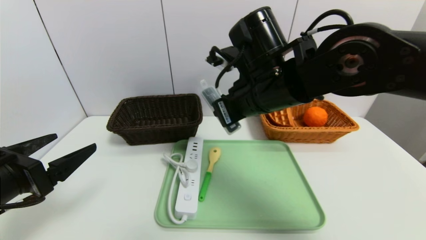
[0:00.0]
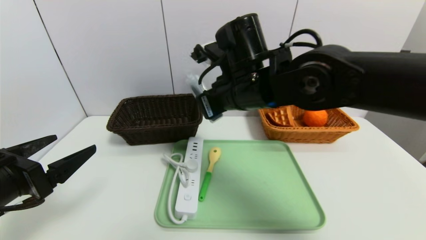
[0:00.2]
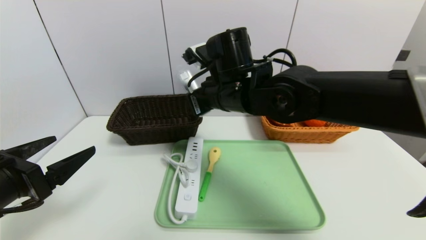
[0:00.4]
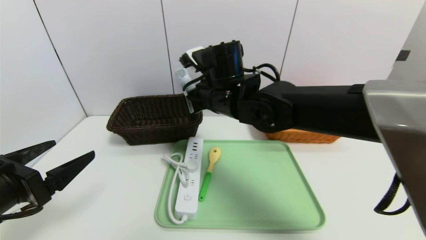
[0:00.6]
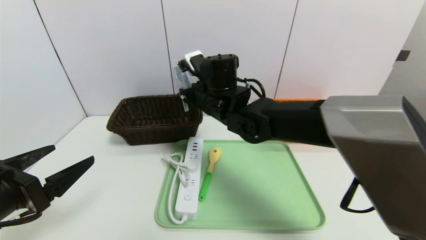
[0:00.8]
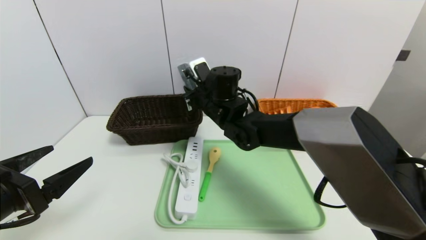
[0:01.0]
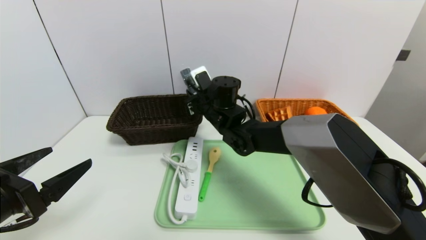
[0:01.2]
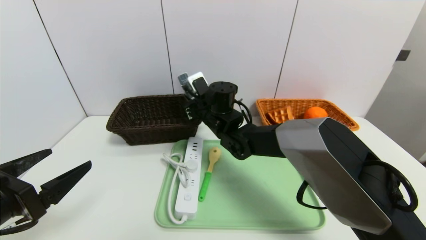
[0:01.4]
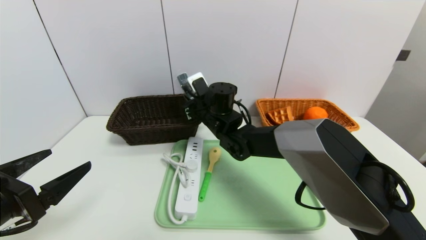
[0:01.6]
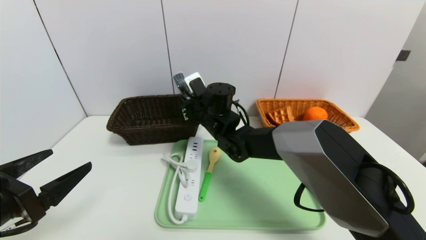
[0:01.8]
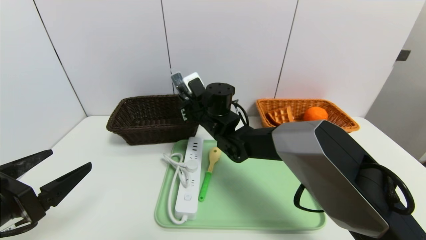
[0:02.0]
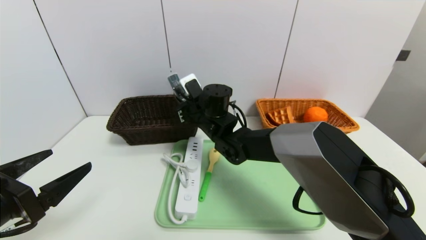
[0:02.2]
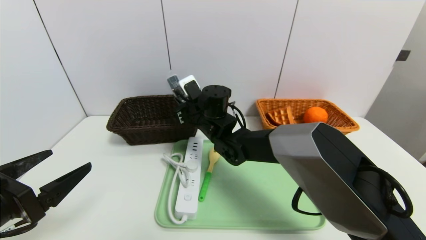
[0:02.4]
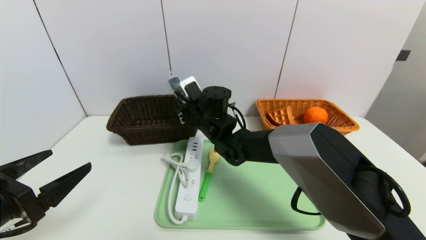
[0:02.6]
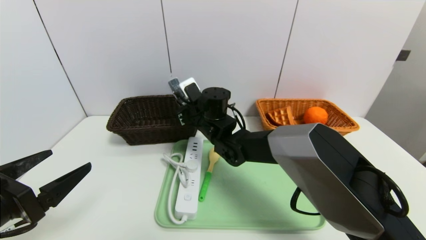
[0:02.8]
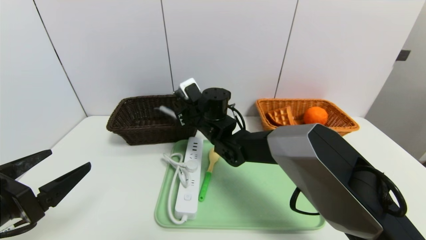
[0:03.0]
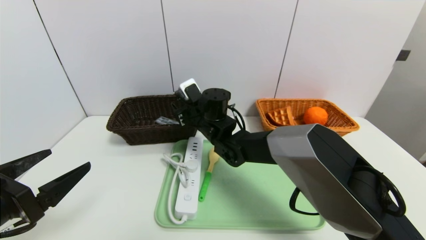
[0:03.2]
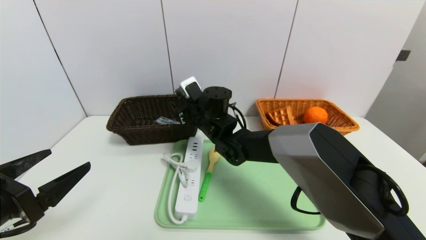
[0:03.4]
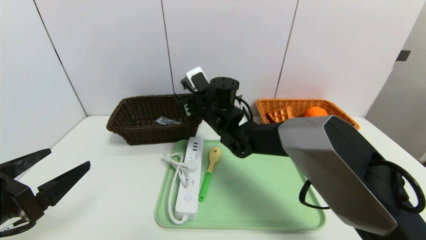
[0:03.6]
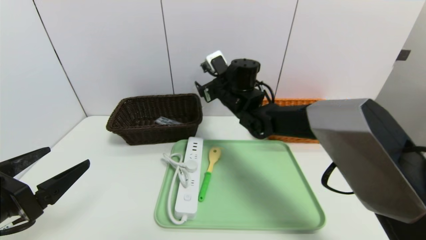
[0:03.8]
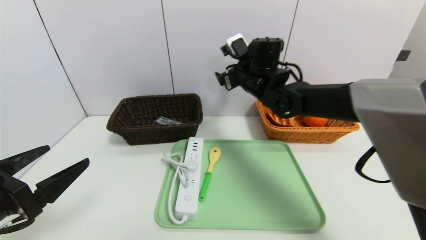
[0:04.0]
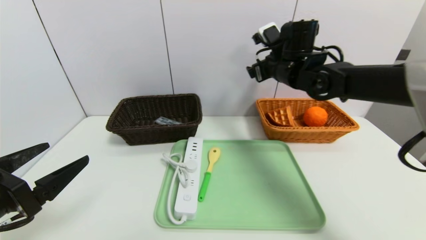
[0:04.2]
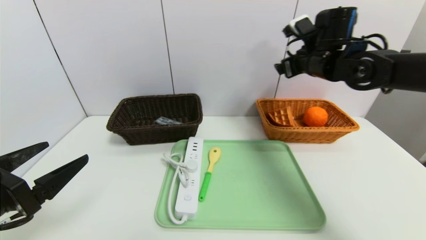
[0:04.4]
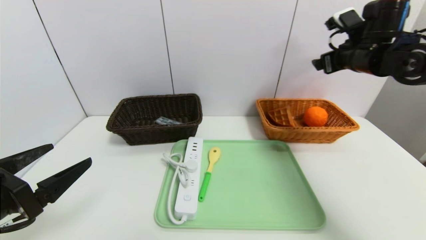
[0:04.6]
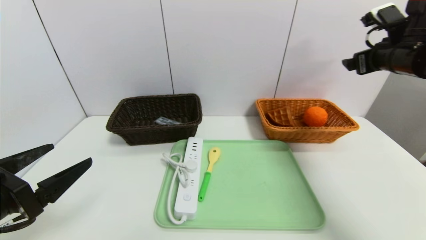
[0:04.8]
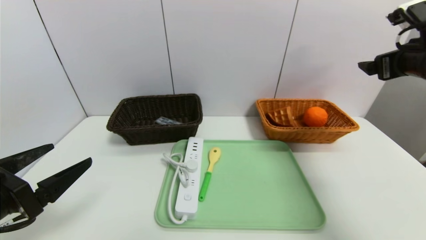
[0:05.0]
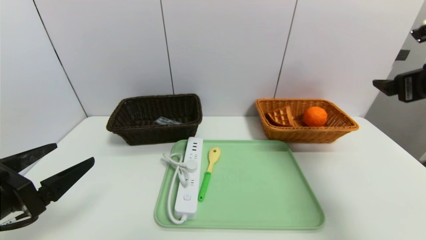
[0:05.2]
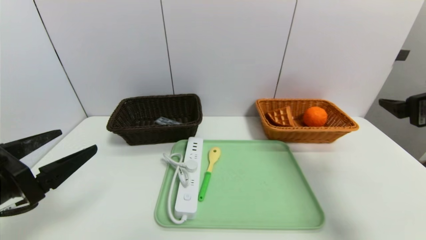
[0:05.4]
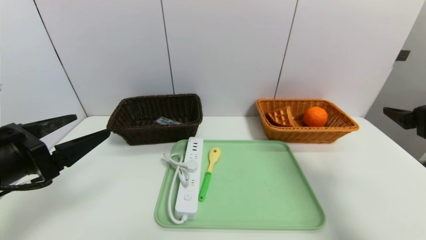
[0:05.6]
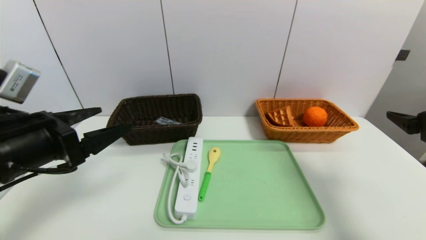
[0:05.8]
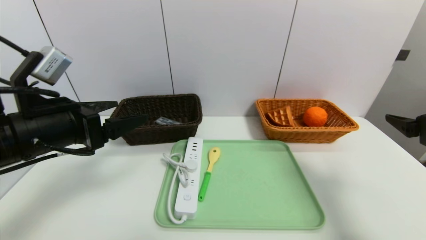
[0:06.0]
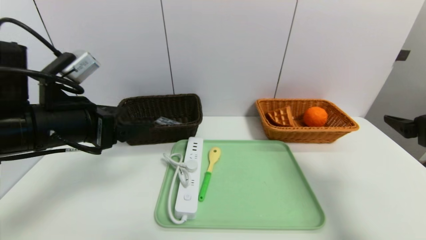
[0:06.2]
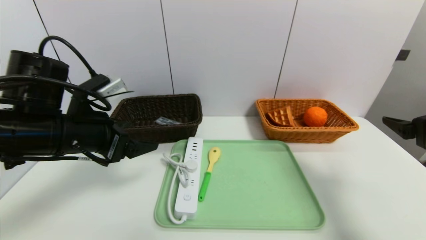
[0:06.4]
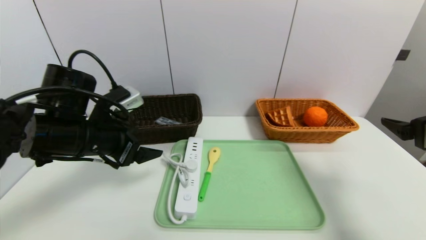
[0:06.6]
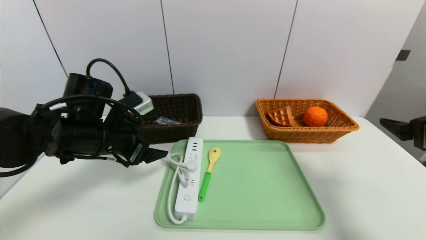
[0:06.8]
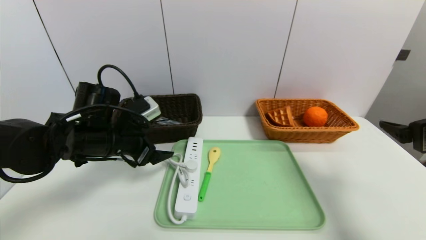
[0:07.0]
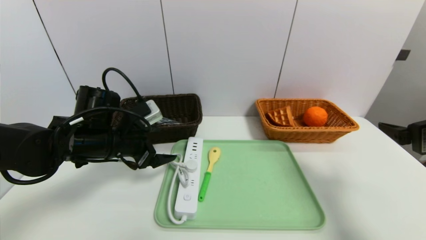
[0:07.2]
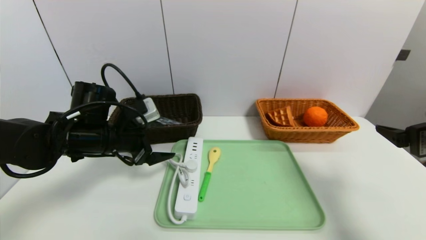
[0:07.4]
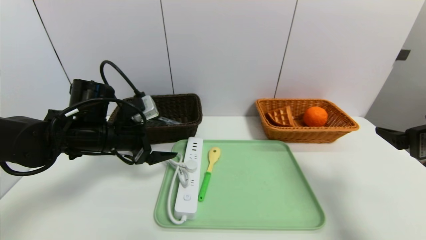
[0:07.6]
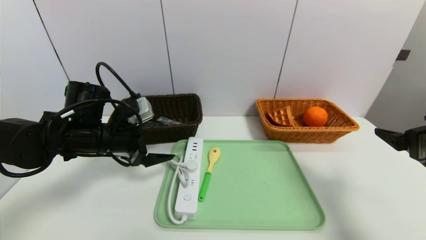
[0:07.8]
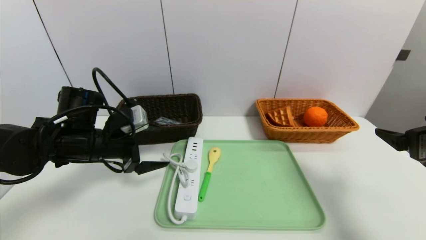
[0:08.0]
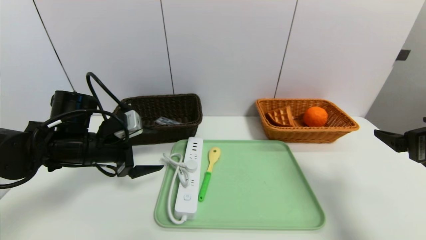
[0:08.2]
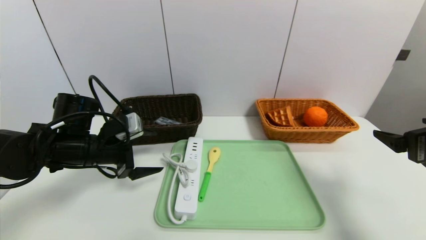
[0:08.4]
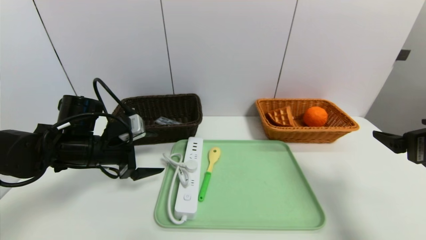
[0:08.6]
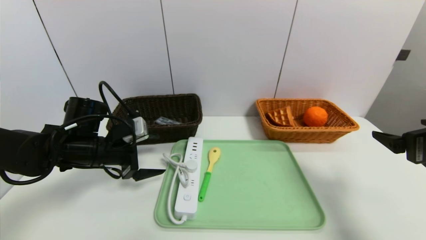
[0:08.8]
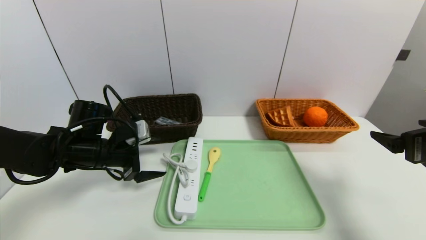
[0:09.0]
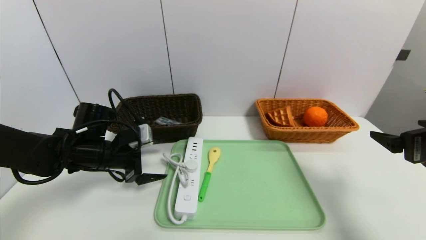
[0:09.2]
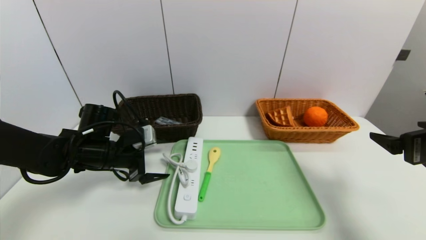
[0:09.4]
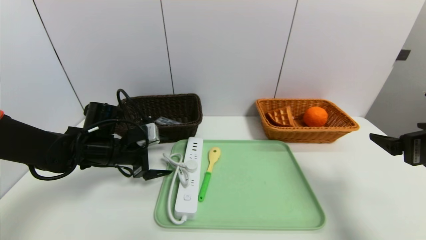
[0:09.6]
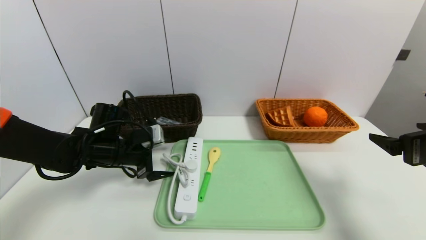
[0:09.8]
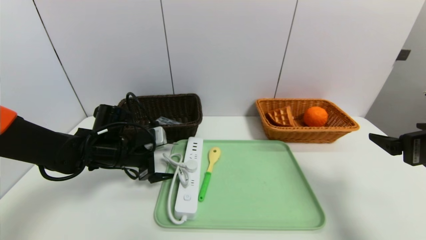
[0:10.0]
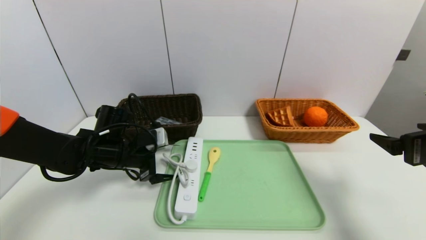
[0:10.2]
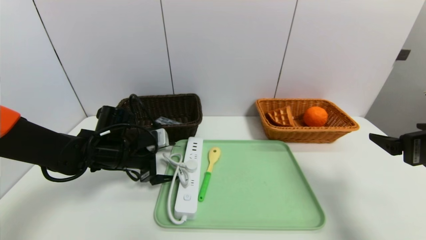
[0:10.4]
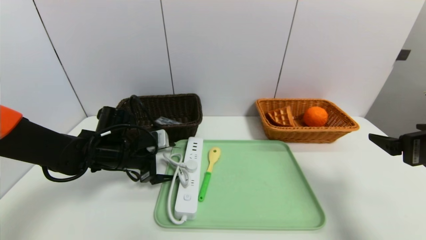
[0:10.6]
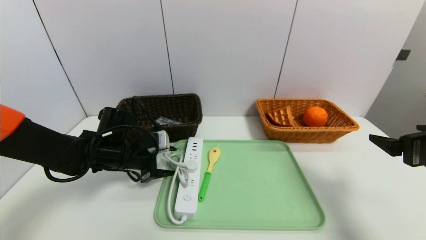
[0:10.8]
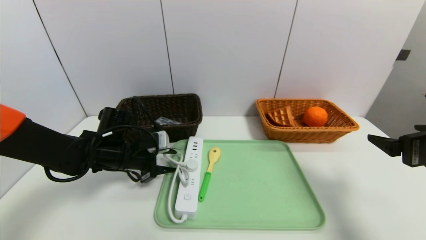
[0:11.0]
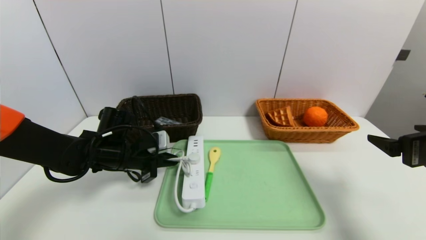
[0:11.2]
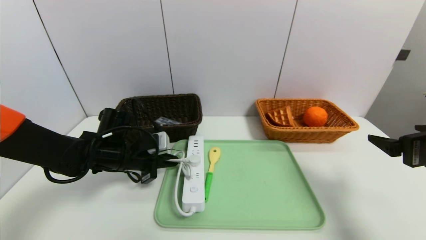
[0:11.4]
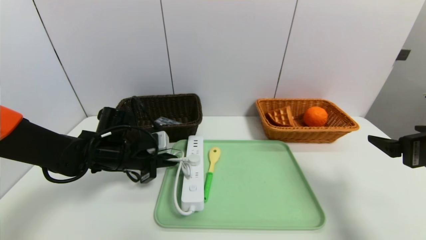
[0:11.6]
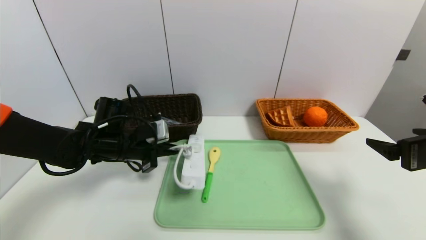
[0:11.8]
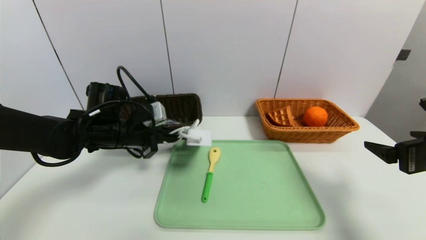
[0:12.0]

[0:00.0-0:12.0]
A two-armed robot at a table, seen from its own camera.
Task of the whole recording: place the food in the right basket with the right gripper, and place the non food items in the left basket with the left gripper.
0:00.0 to 0:01.6: The right gripper moves forward, downward and to the left, about 20 cm.
0:01.6 to 0:03.0: The right gripper opens.
0:03.0 to 0:04.4: The right gripper is displaced to the right and upward by about 30 cm, and opens.
0:04.4 to 0:06.0: The left gripper goes about 10 cm forward, upward and to the right. Meanwhile the right gripper travels backward and to the right by roughly 25 cm.
0:06.0 to 0:07.6: The left gripper travels forward and downward by roughly 10 cm.
0:07.6 to 0:09.0: The left gripper ends up some 5 cm from where it was.
0:09.0 to 0:10.4: There are only small adjustments of the grippers.
0:10.4 to 0:12.0: The left gripper travels upward by about 5 cm, and closes.

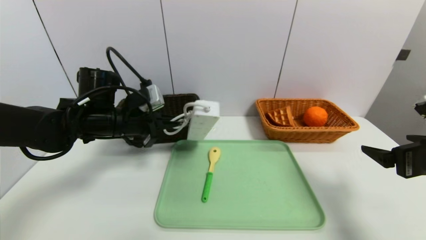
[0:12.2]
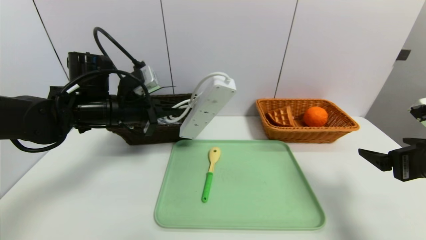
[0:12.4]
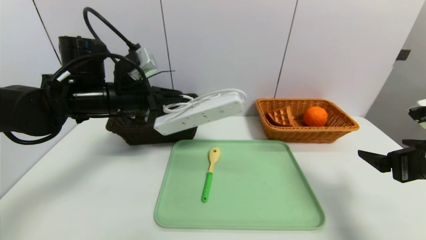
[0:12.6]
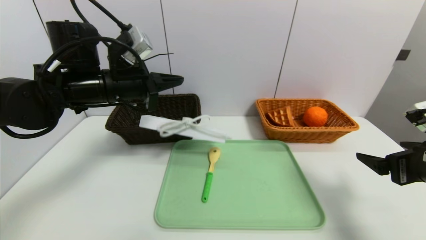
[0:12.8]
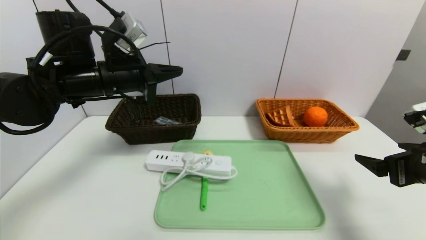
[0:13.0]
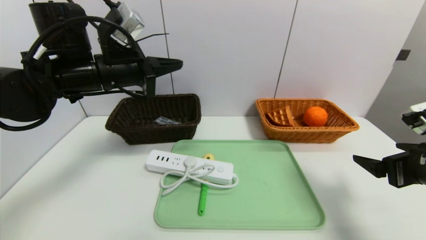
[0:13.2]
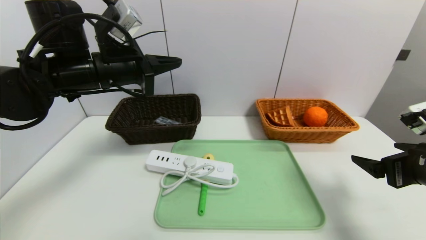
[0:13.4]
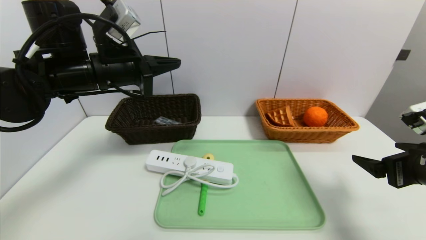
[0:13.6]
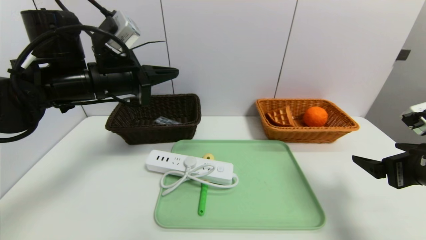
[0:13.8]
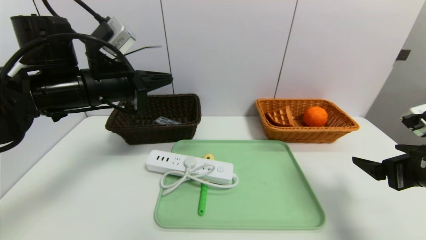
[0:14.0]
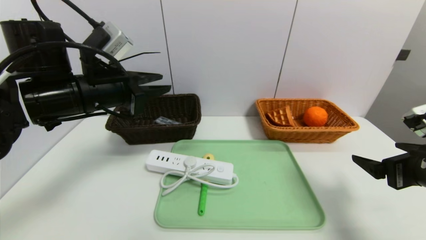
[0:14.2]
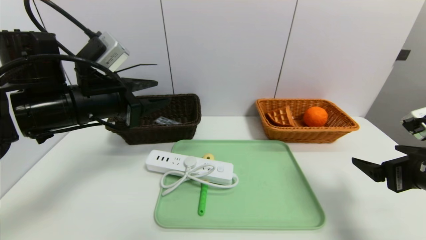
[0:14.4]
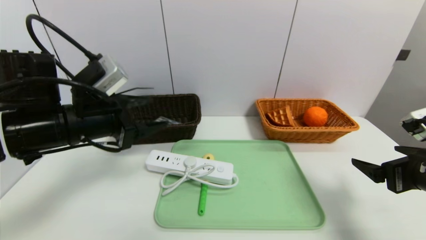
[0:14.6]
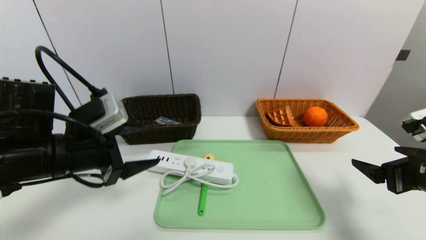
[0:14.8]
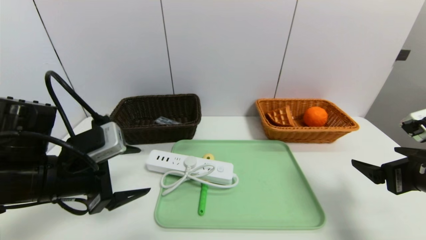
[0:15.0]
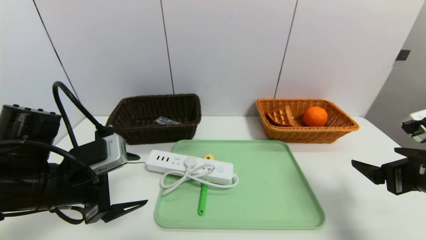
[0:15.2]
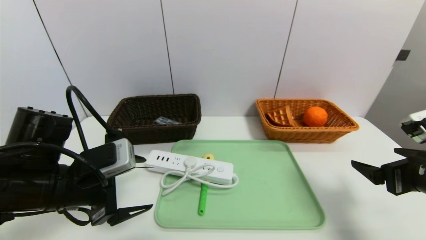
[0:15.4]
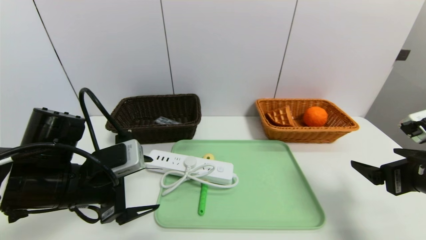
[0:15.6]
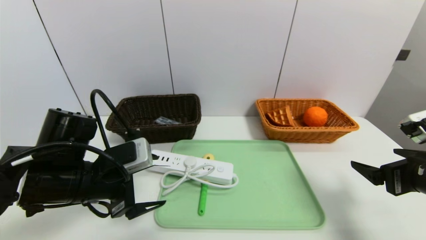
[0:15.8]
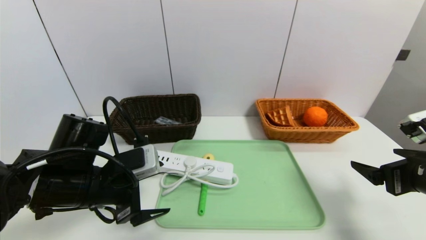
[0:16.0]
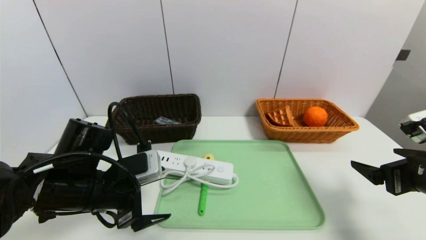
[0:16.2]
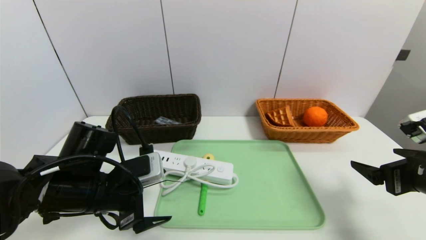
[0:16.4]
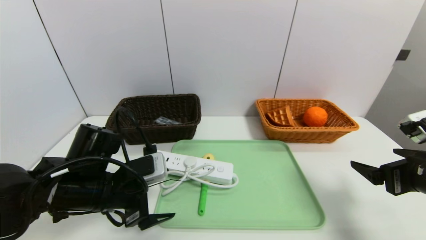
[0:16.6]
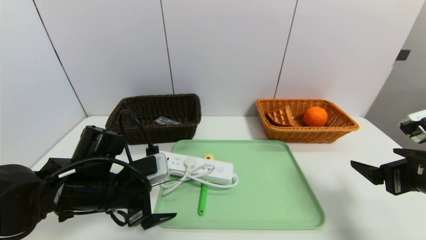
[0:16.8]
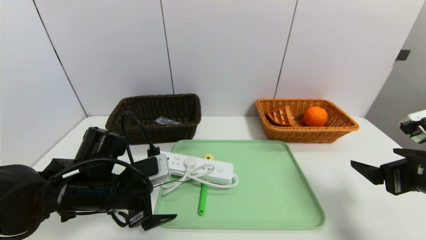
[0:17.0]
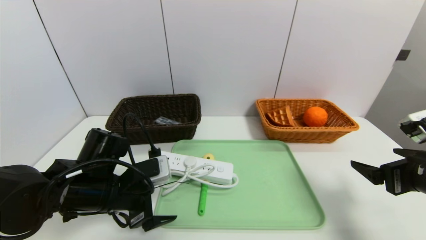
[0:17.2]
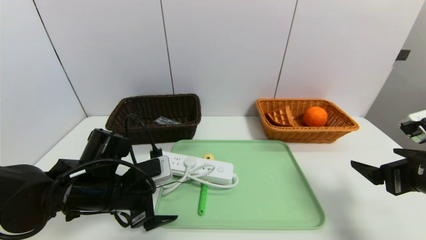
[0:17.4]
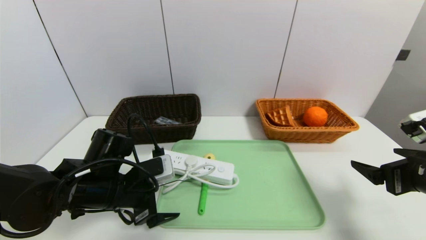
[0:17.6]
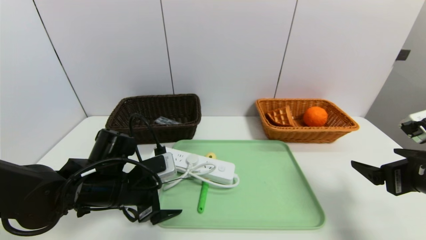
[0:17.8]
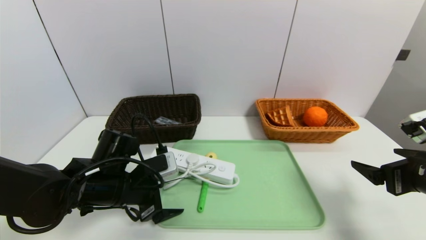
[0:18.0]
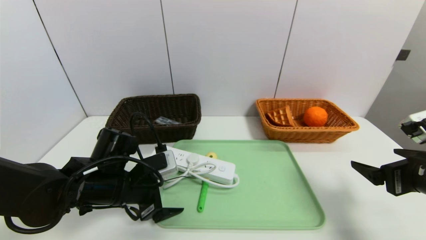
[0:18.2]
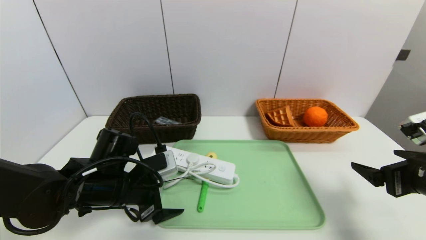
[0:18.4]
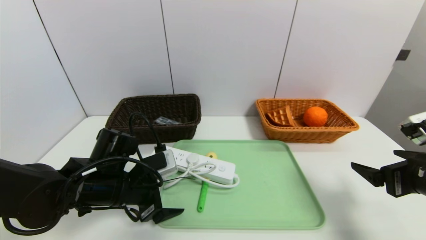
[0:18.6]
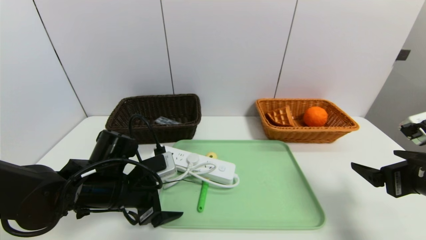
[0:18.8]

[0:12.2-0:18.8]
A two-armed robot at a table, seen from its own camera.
Task of the whole recording: place the food in the right basket with the right gripper, and place the non food items in the left basket with the left gripper.
0:12.2 to 0:13.8: The left gripper heads upward, covering some 10 cm.
0:13.8 to 0:15.4: The left gripper heads backward and downward, covering approximately 15 cm, and opens up.
0:15.4 to 0:17.2: The left gripper moves downward, approximately 5 cm.
0:17.2 to 0:18.8: The grippers stay close to where they were, moving slightly.
